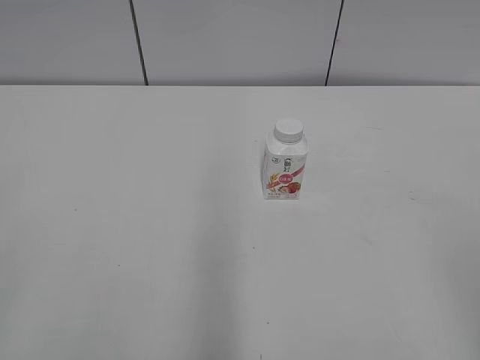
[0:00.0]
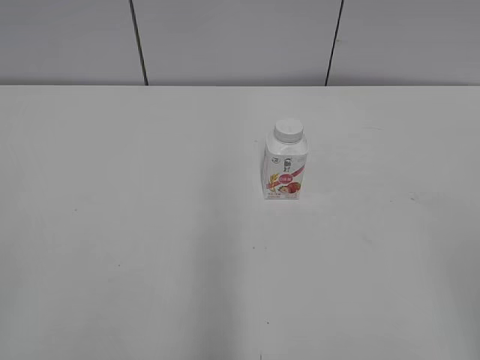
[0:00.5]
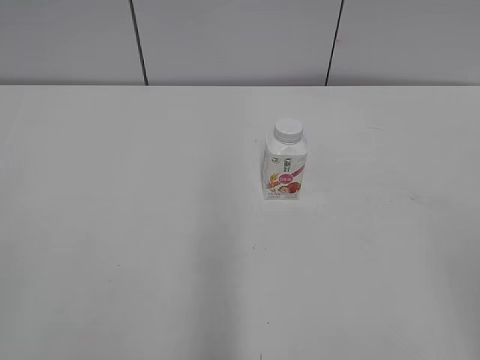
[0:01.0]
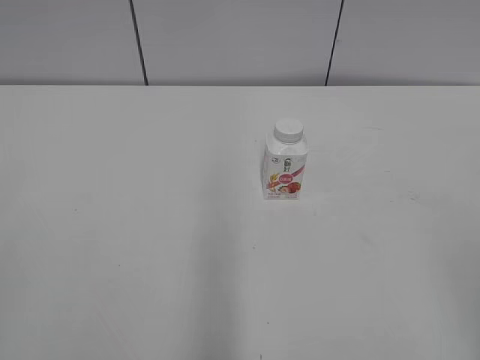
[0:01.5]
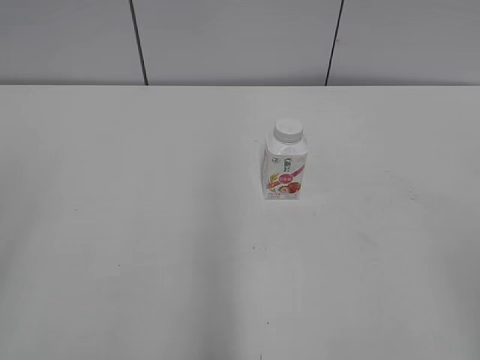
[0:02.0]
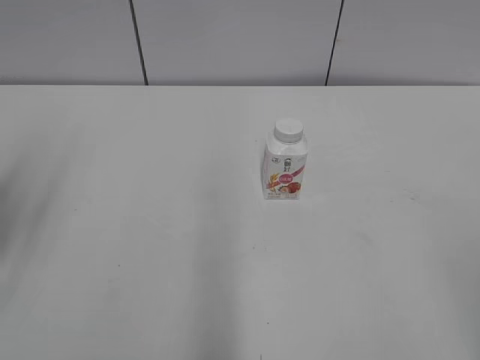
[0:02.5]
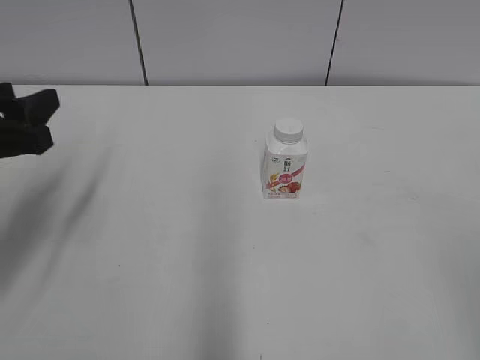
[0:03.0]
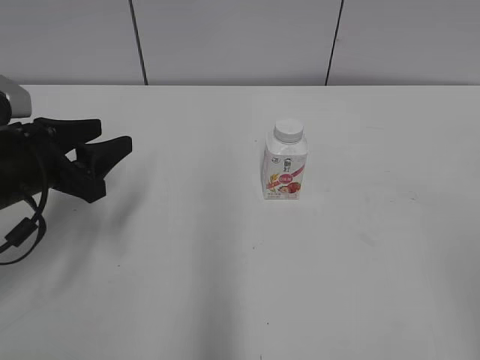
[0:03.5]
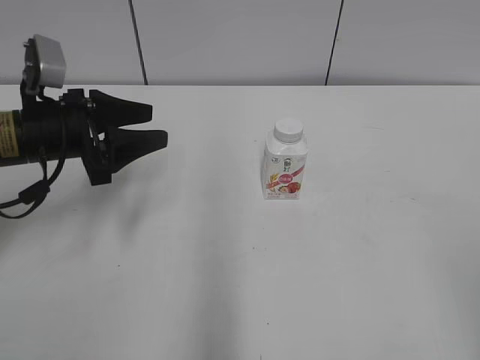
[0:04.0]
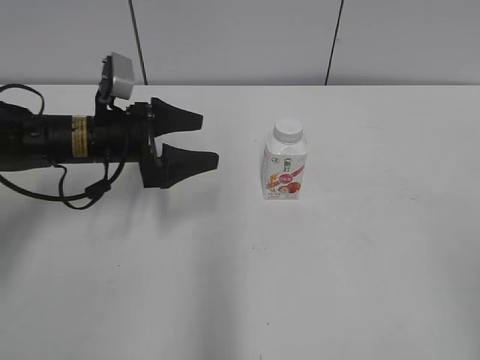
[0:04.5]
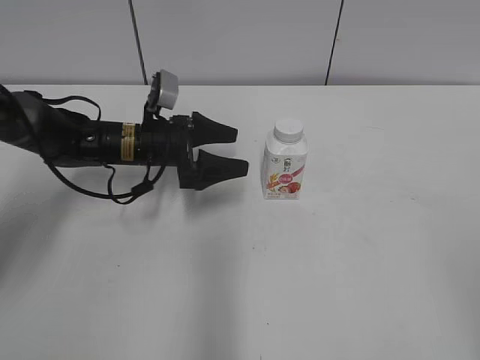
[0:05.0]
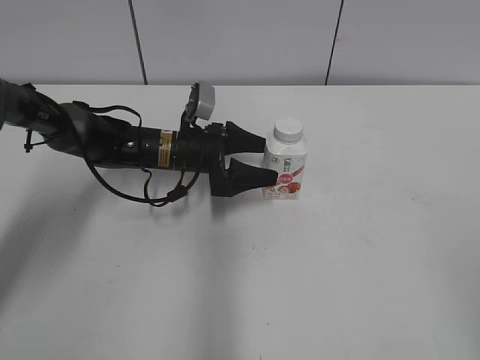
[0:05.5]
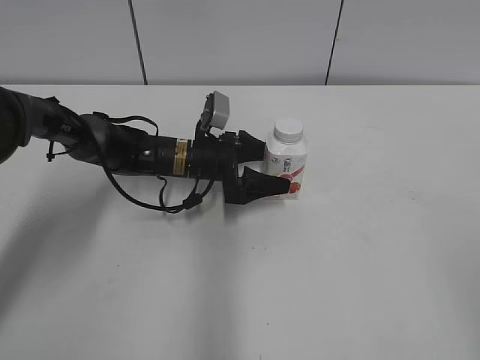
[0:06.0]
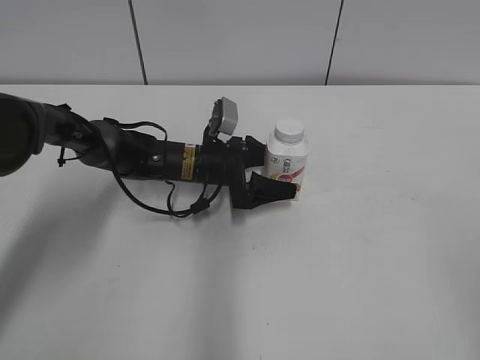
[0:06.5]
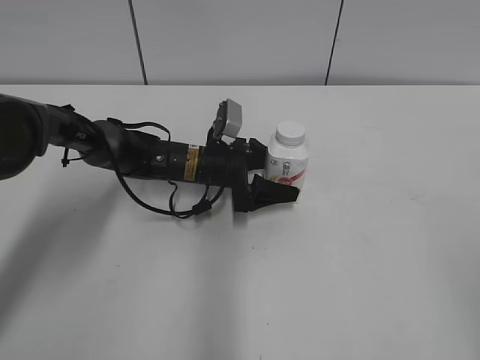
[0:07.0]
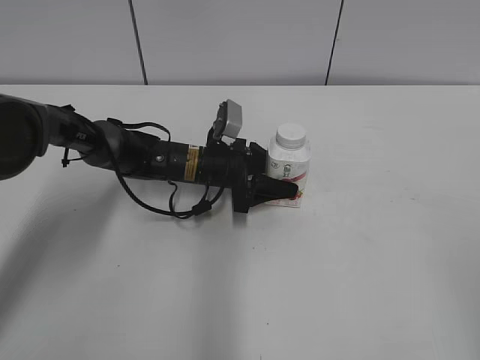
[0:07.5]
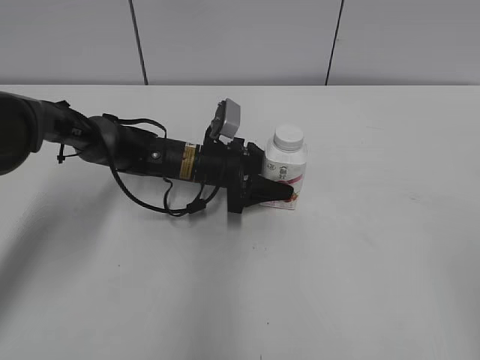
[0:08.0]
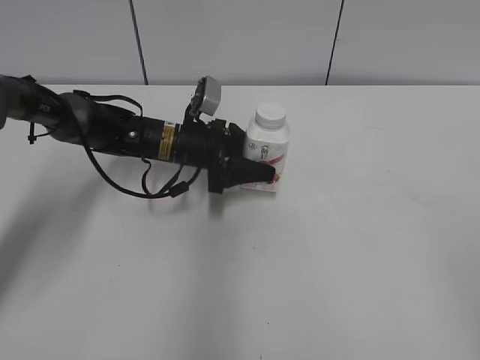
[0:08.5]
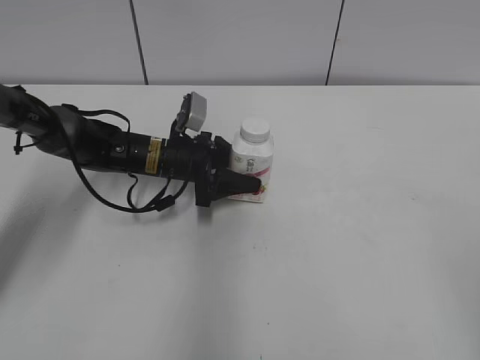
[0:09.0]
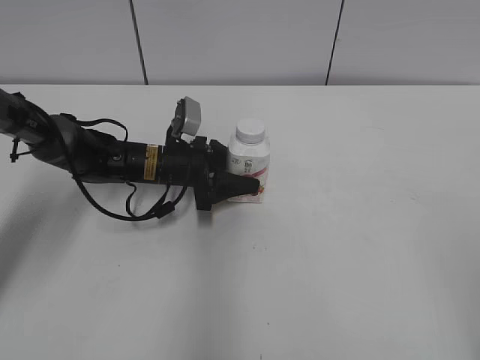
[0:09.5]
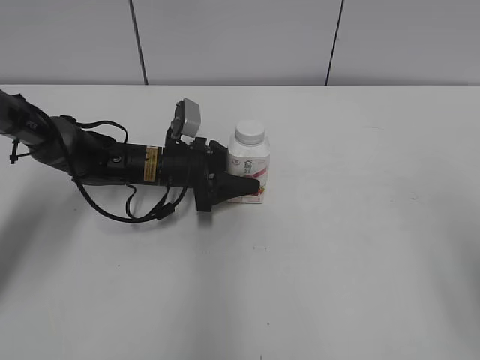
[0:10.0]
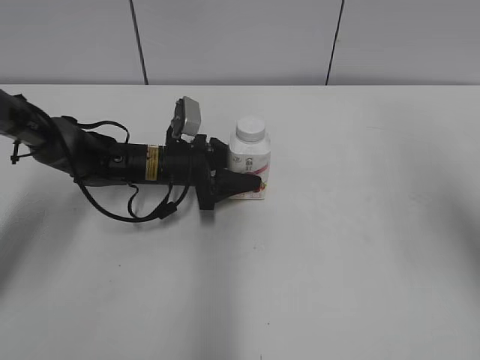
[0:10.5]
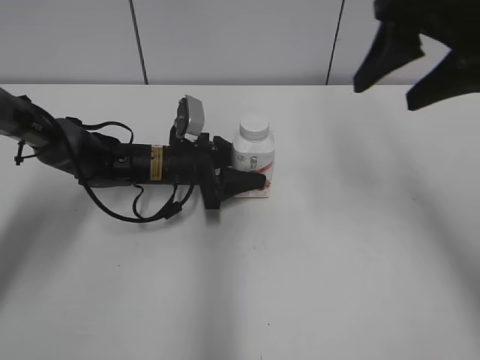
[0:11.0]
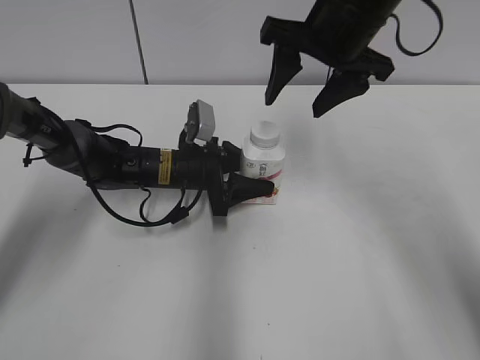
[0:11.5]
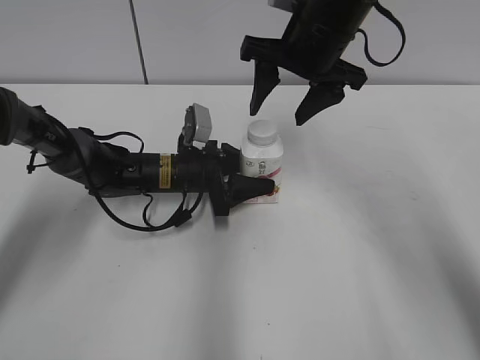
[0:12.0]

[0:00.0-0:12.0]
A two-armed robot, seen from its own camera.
Step, 0:00.0 to 0:07.0: Grasp the bottle and move it to the center of the table with the left gripper.
Step, 0:07.5 to 0:11.5: Lift the bottle and move it to the center of the table with the left gripper.
0:02.0 to 0:04.0: The left gripper heads forward and downward, covering approximately 30 cm.
0:04.0 to 0:06.0: The left gripper shifts roughly 20 cm to the right, downward and forward, and opens.
0:06.0 to 0:08.0: The left gripper closes up.
0:08.0 to 0:10.0: The right gripper is displaced forward by approximately 10 cm, while the left gripper shifts some 5 cm to the left.
0:10.0 to 0:12.0: The right gripper is displaced forward and to the left by some 40 cm.

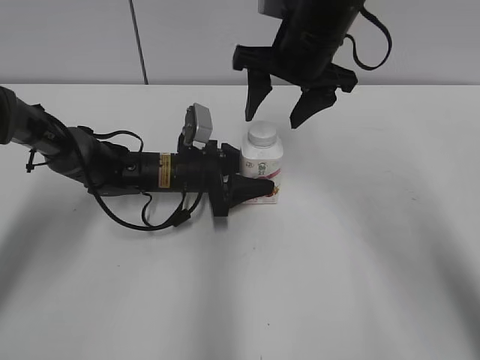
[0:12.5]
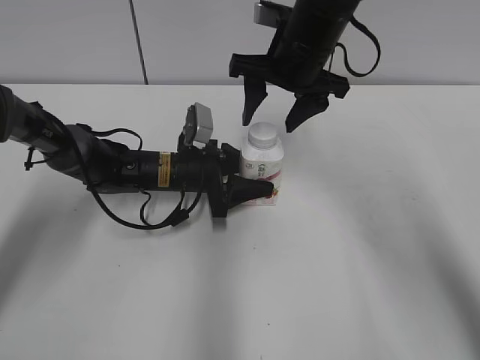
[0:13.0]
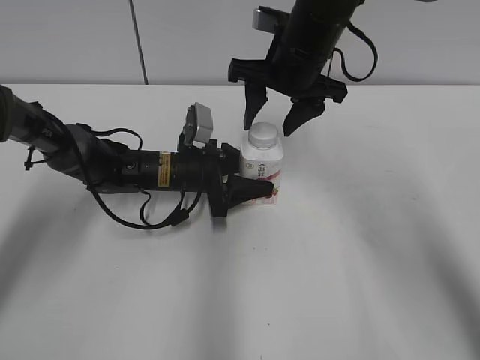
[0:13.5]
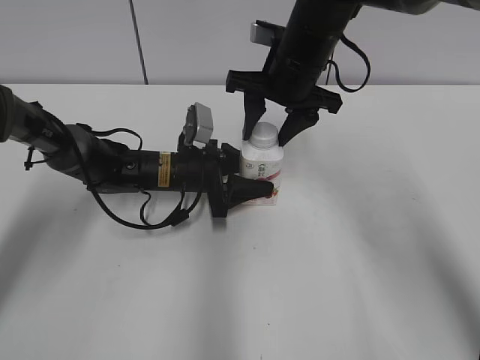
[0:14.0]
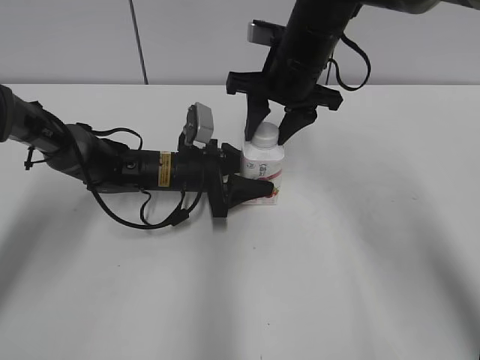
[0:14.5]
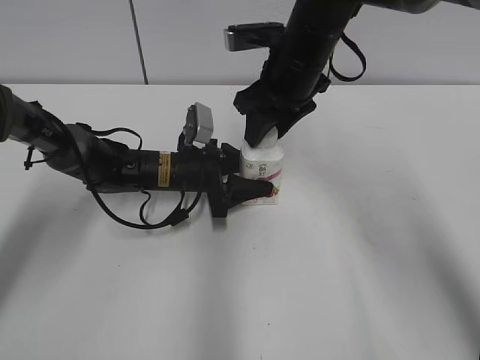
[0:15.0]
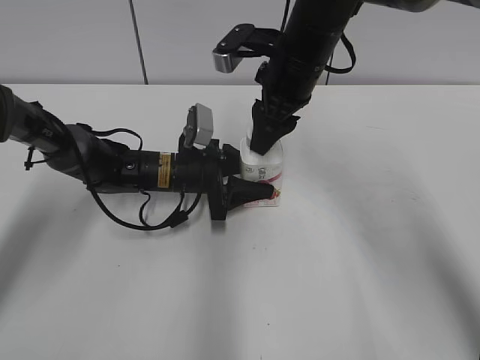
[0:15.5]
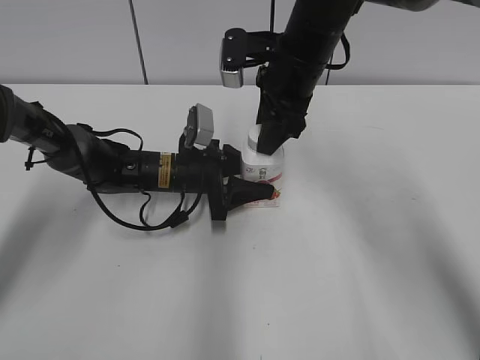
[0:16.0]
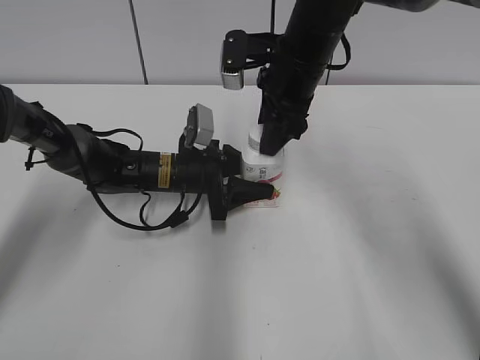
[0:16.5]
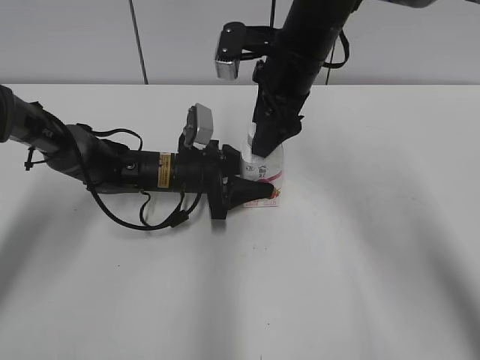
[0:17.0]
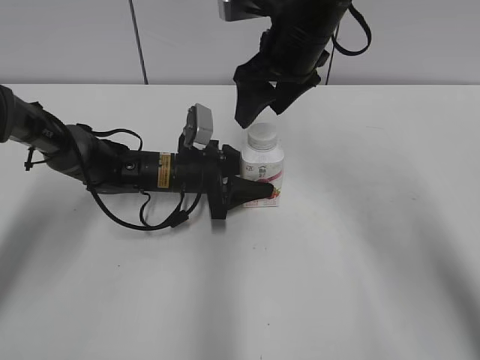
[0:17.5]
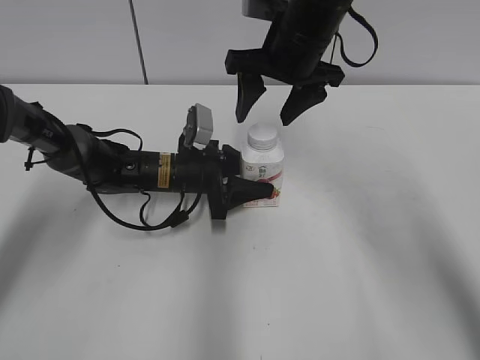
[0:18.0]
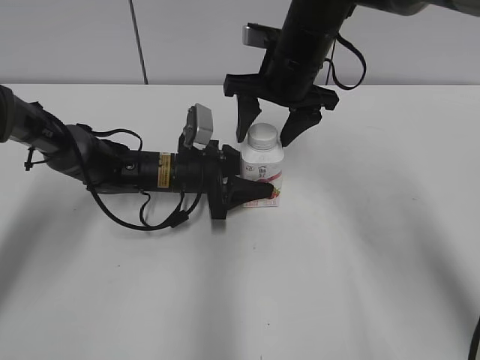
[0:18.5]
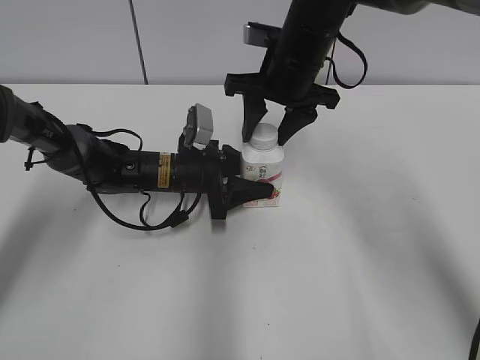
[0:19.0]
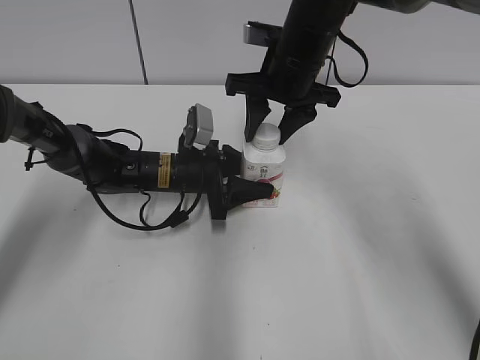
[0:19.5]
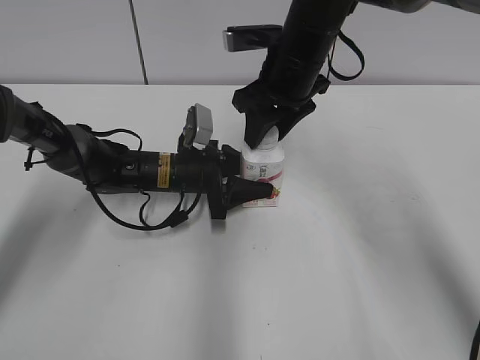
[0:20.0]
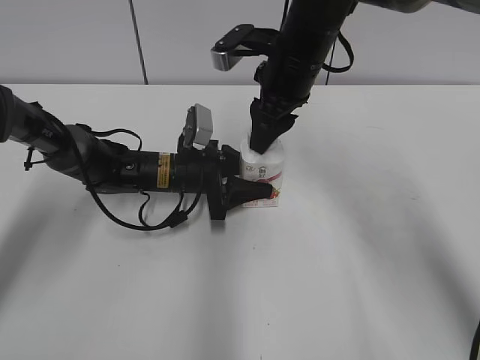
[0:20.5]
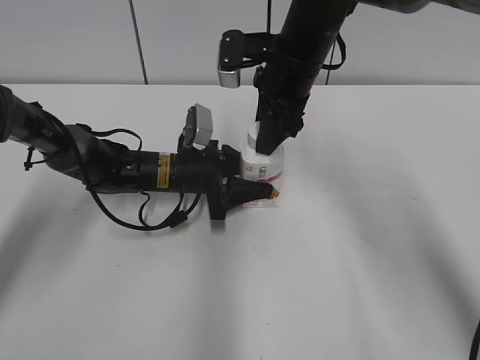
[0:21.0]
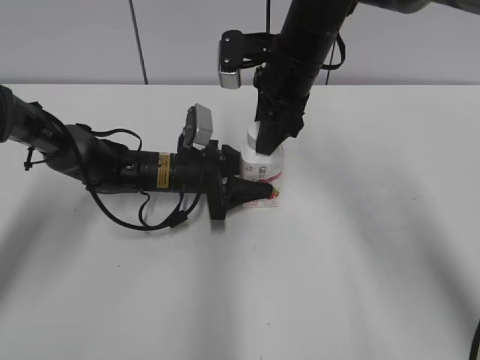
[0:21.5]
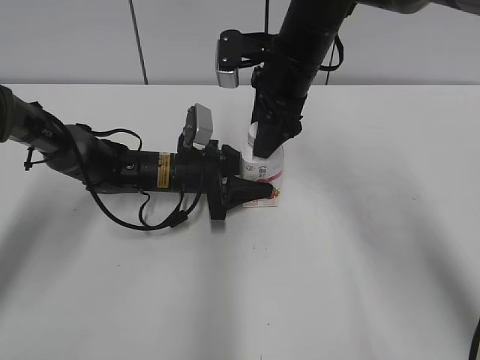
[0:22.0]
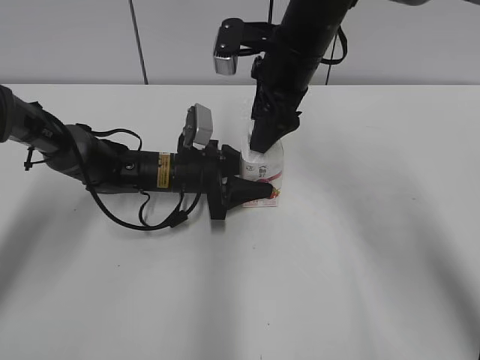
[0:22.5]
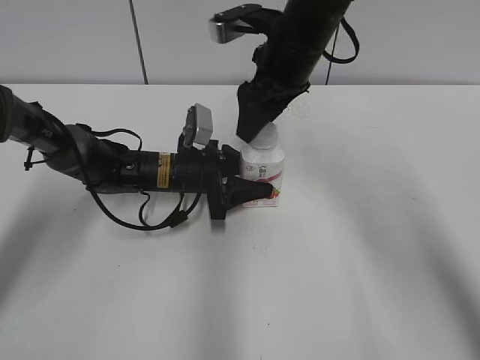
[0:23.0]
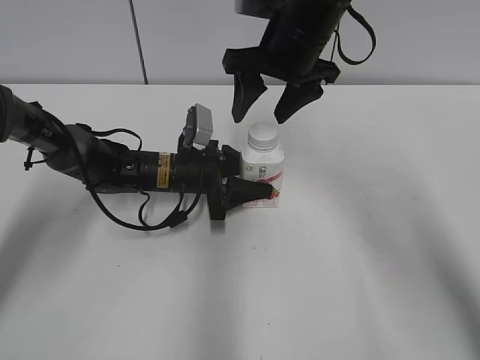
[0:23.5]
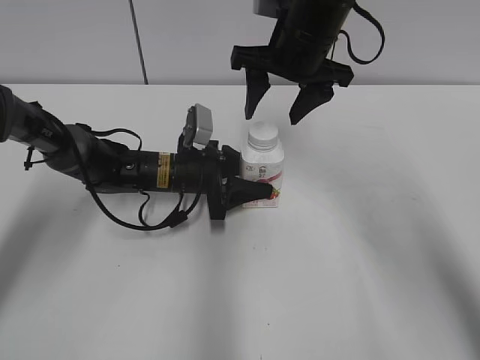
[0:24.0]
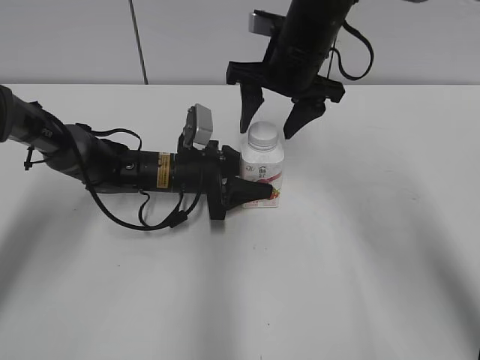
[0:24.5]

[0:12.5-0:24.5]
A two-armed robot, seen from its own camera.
0:12.5 to 0:14.5: The right gripper closes.
0:16.5 to 0:18.5: The right gripper opens.
0:18.5 to 0:20.5: The right gripper closes.
0:20.5 to 0:22.5: The right gripper opens its fingers.

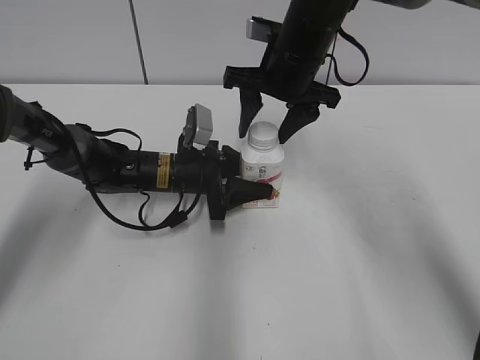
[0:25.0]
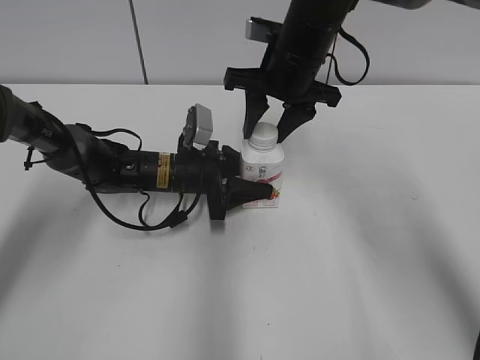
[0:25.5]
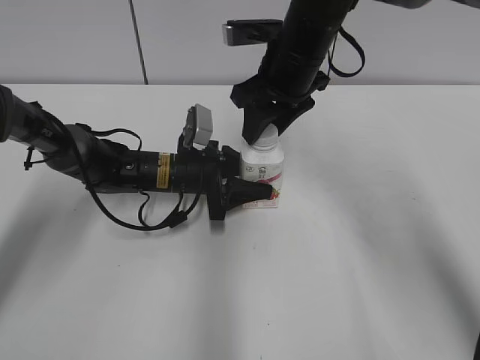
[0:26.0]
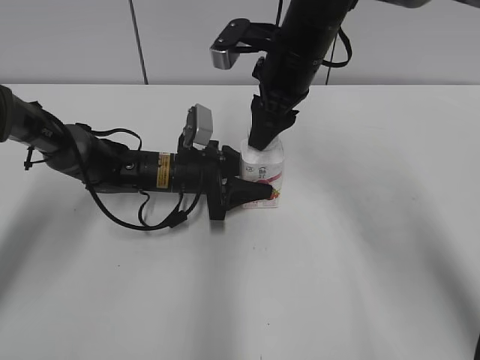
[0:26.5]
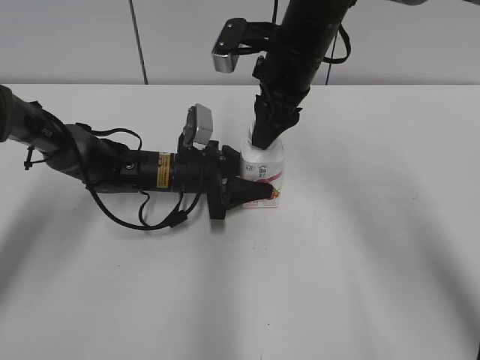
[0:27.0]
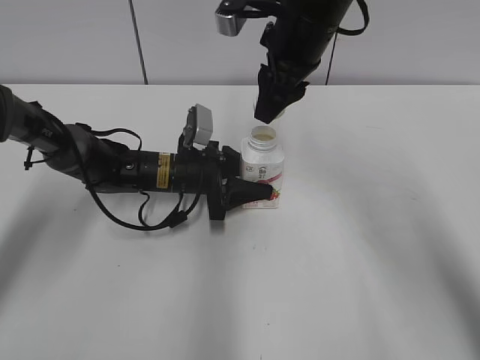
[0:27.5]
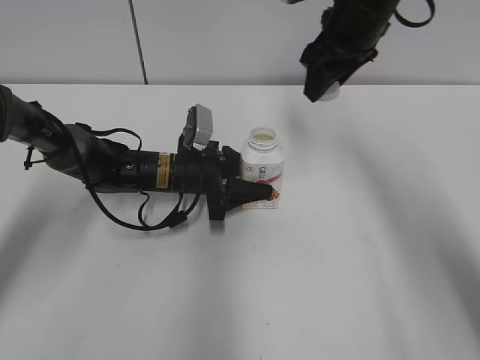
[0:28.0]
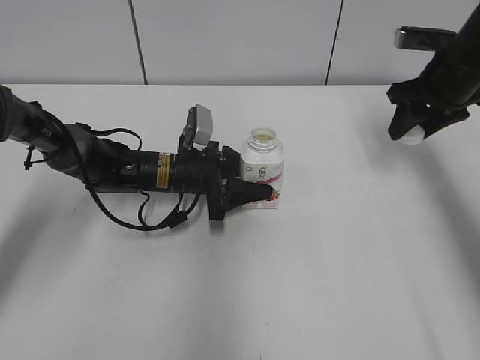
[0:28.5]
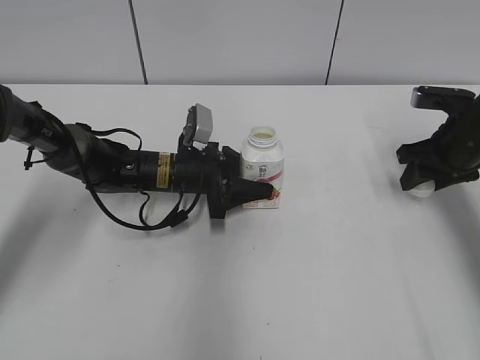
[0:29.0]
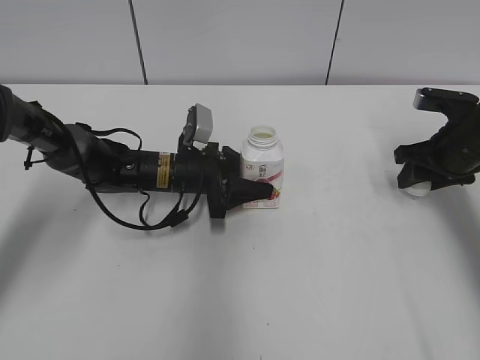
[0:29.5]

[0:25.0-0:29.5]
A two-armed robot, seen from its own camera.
Step, 0:25.0 to 0:27.0: Unscrew the bottle cap with the right gripper while holding the bottle with the left gripper.
0:25.0 to 0:27.0: The right gripper closes.
0:27.0 to 0:29.5: The right gripper goes some 25 cm to the right and downward.
